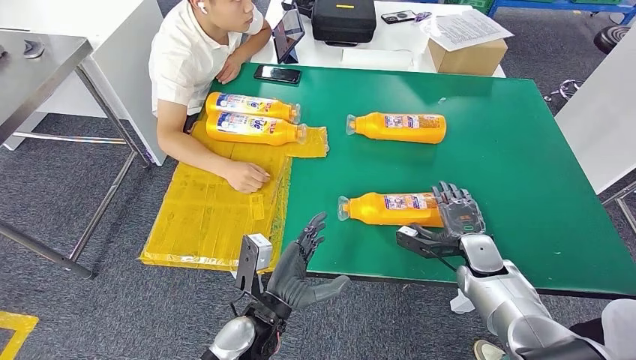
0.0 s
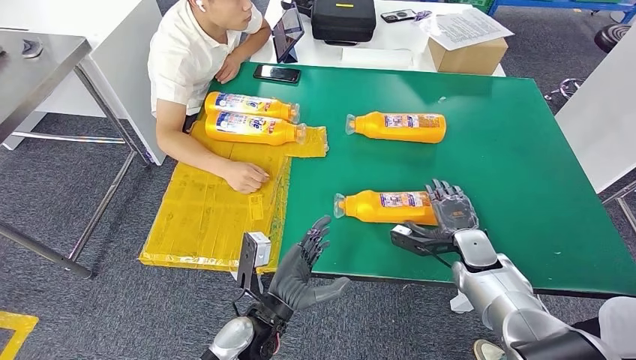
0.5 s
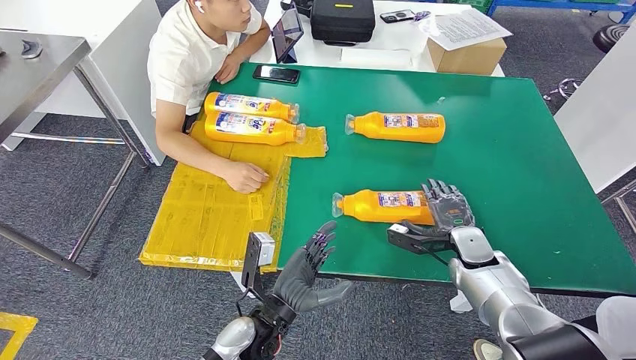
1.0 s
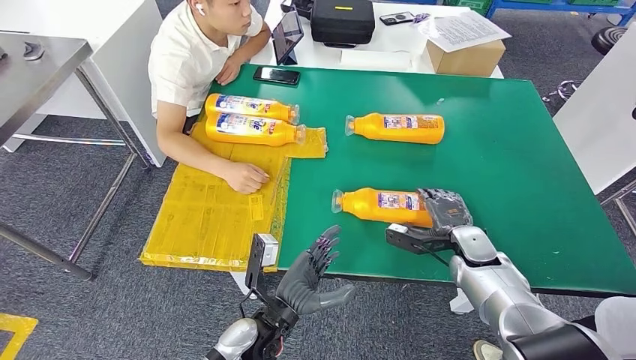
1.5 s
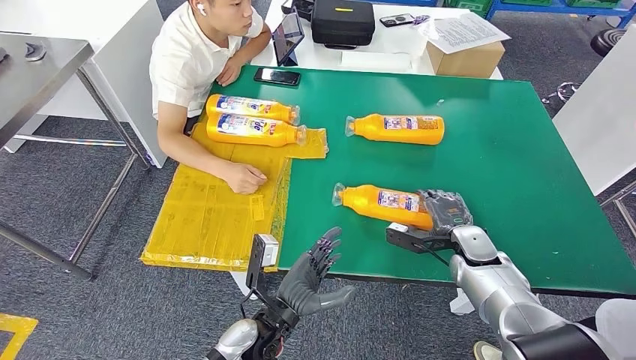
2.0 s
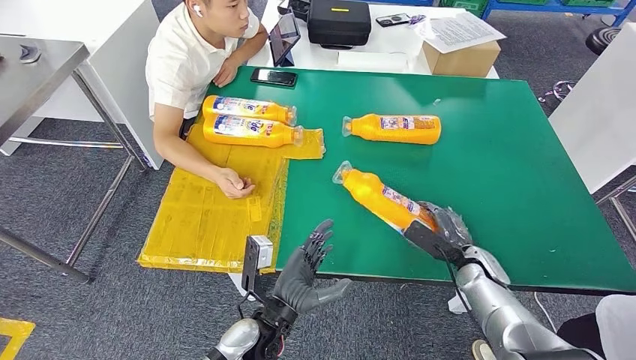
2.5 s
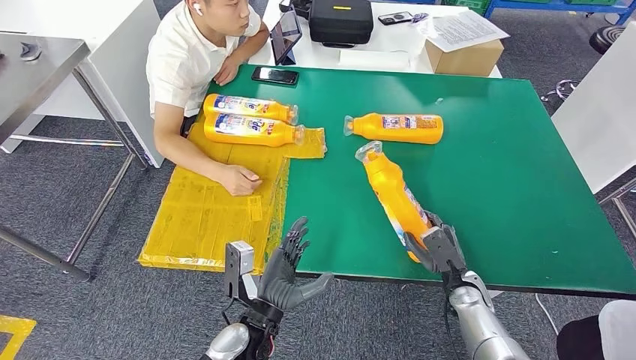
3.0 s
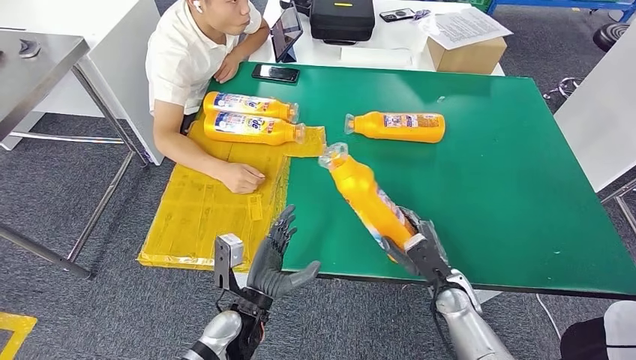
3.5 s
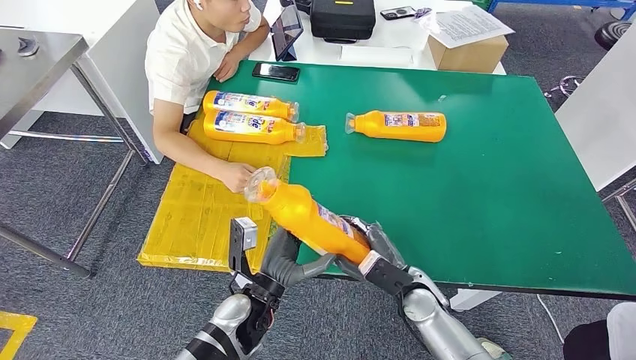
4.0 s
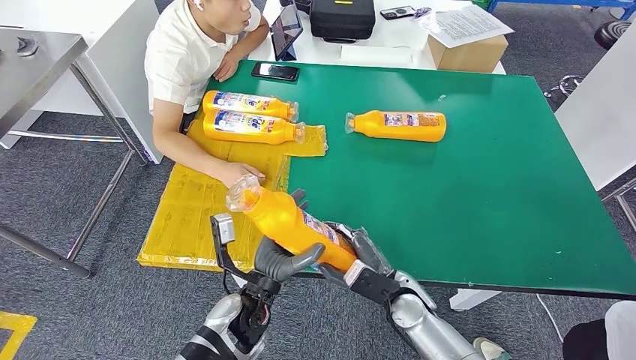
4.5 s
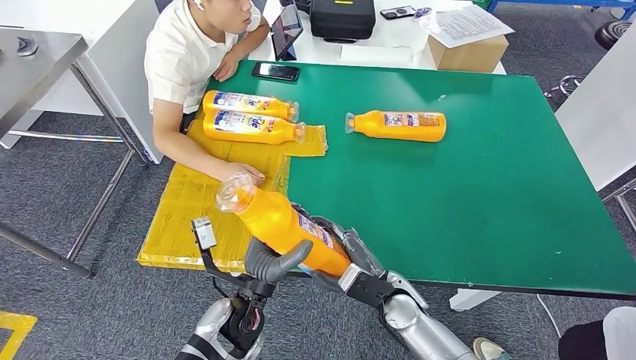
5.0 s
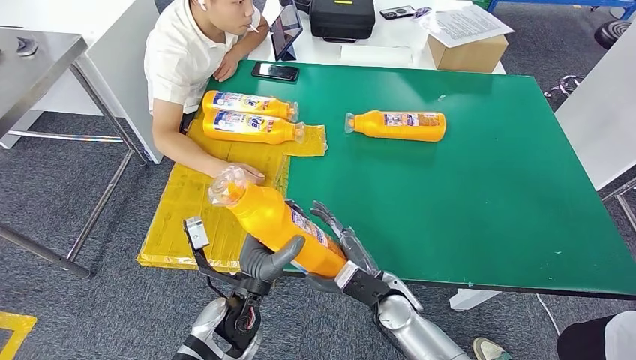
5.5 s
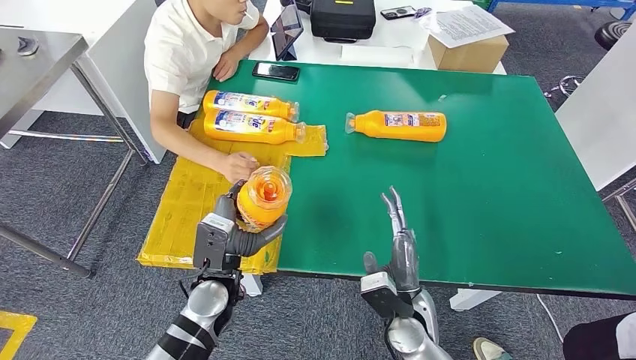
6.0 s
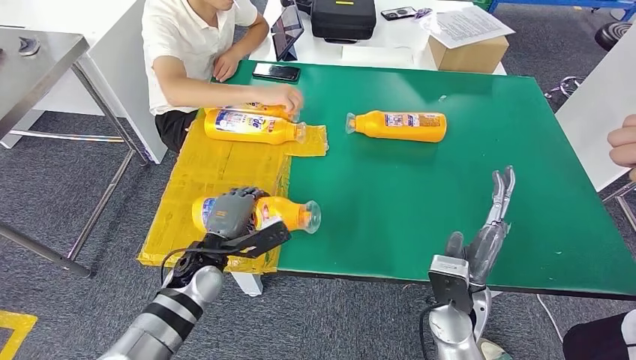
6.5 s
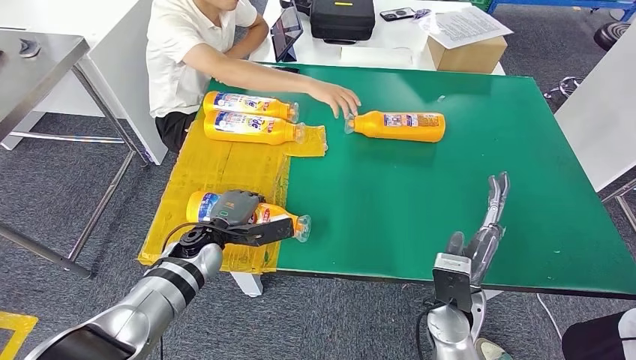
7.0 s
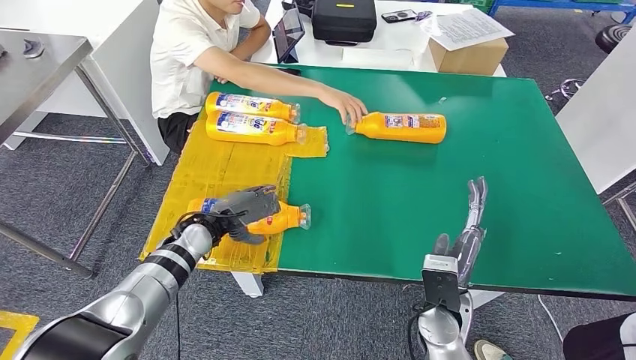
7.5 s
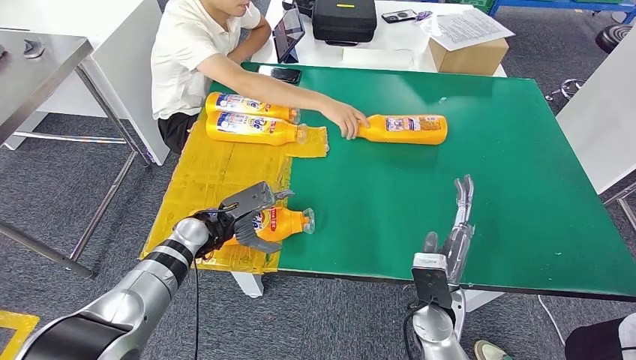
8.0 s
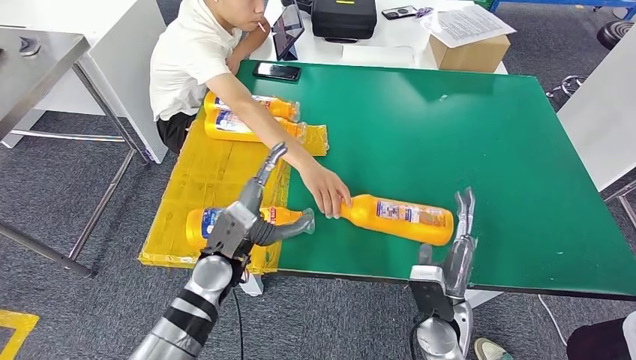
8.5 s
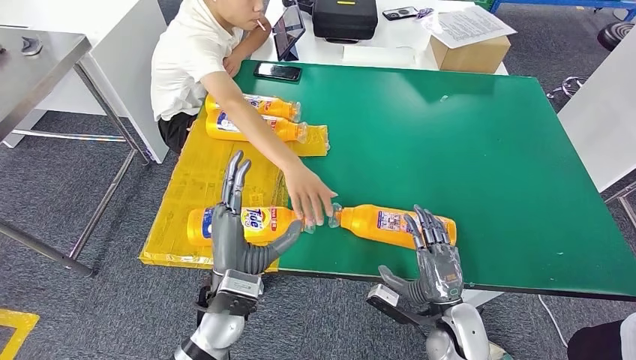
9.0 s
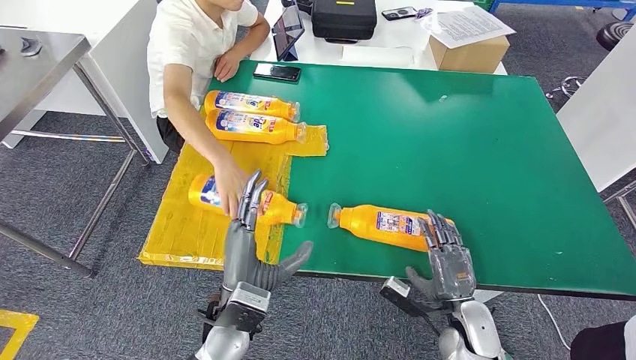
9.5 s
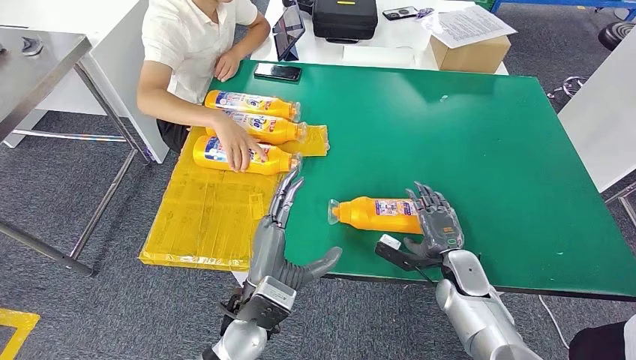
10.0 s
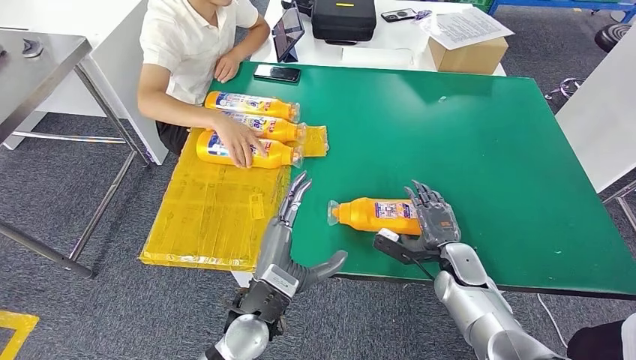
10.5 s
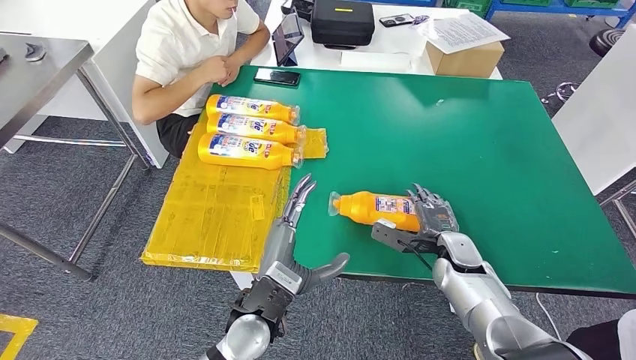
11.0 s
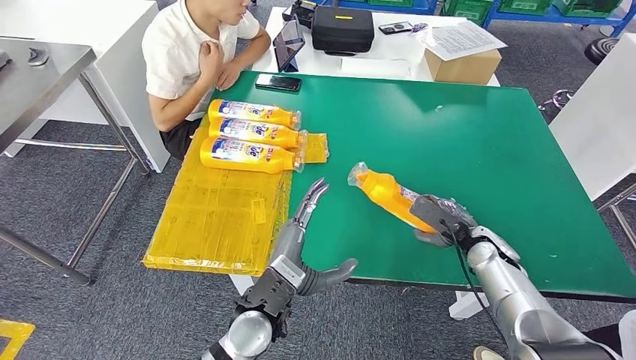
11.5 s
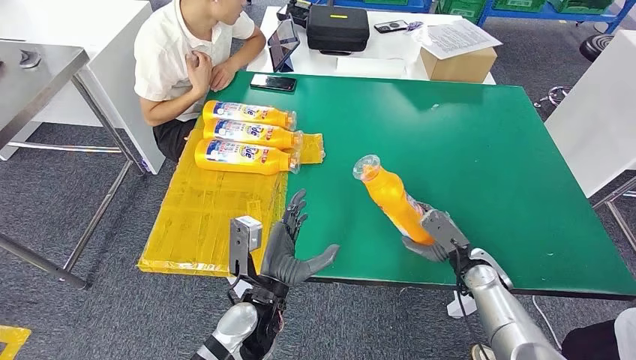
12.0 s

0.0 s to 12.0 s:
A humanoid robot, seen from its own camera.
Step, 0.0 to 3.5 s: Pick up the bottle from the table.
Step, 4.0 to 8.0 s: Flip the bottle to face forward.
0.0 to 2.0 s: The hands make only small movements.
4.0 to 6.0 s: The left hand is displaced to the left by approximately 5 cm. The right hand moves roughly 5 cm.

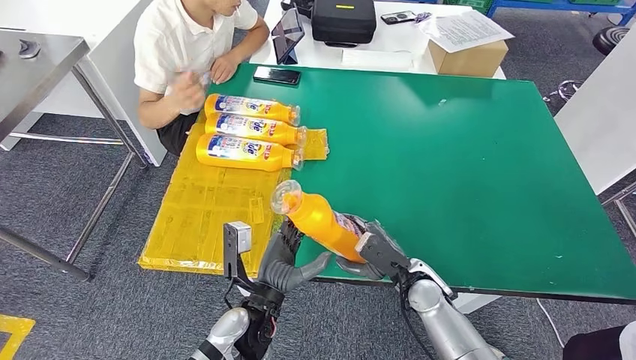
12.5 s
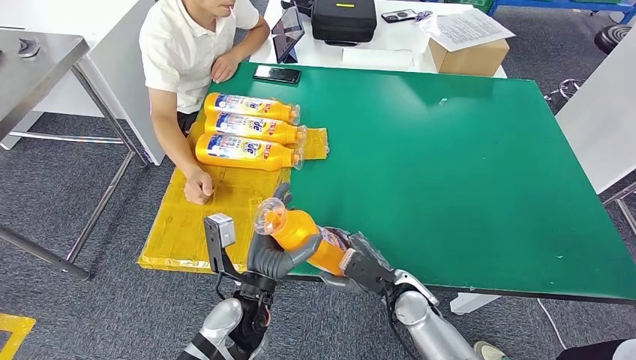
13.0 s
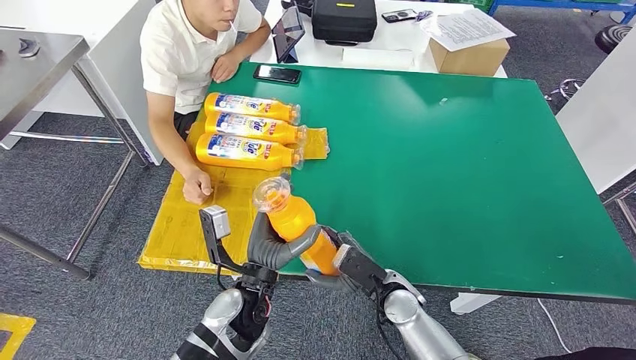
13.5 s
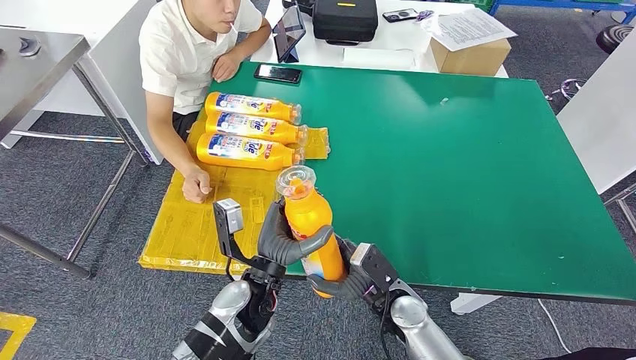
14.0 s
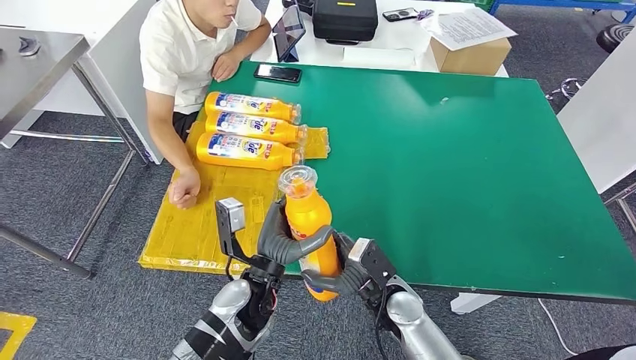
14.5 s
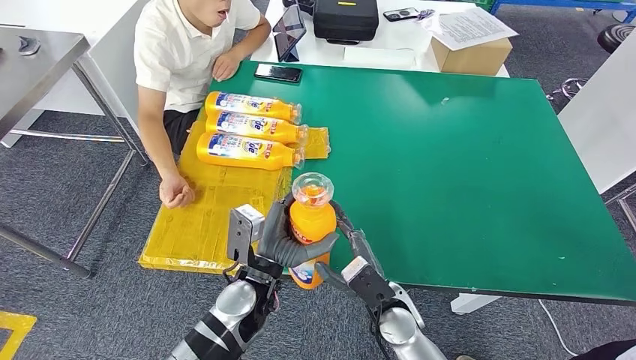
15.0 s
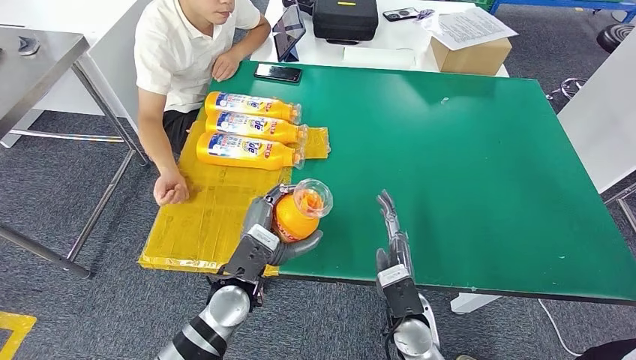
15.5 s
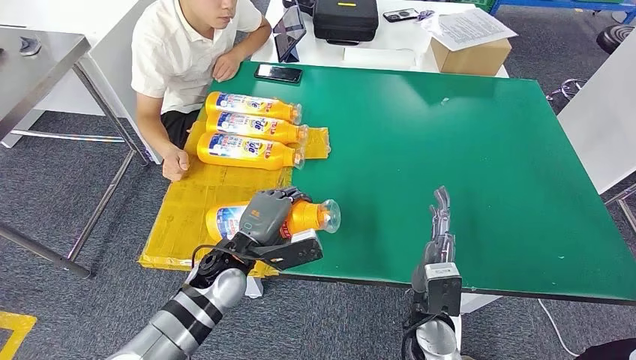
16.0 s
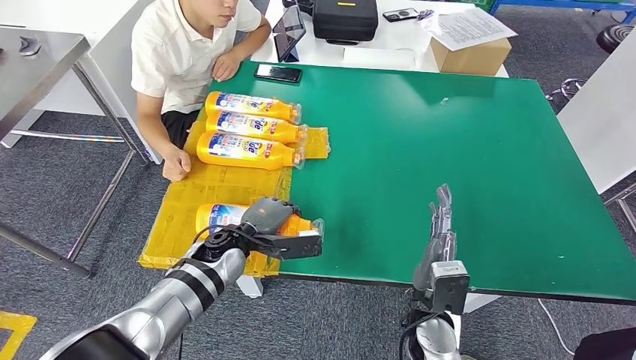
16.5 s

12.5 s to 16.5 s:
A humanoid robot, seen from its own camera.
Step, 12.5 to 16.5 s: Flip the bottle to face forward.
14.5 to 16.5 s: The left hand is displaced forward and to the left by roughly 10 cm. The right hand travels to the right by about 5 cm.

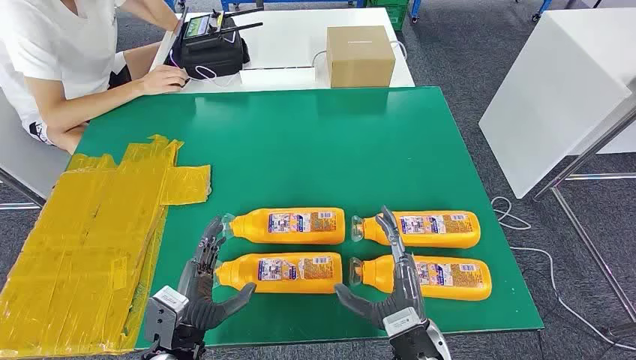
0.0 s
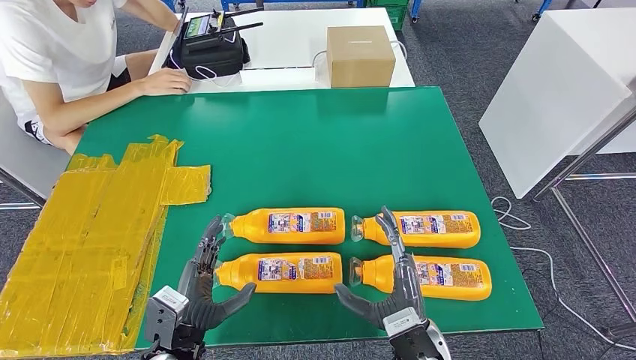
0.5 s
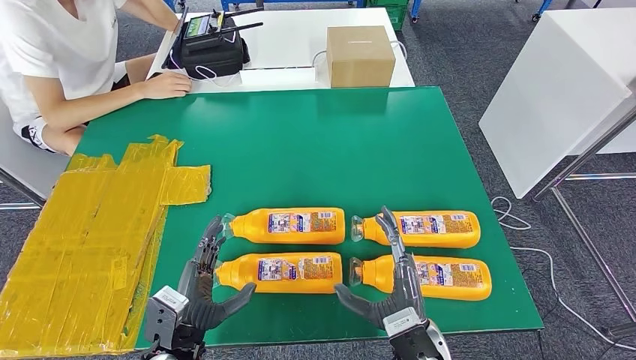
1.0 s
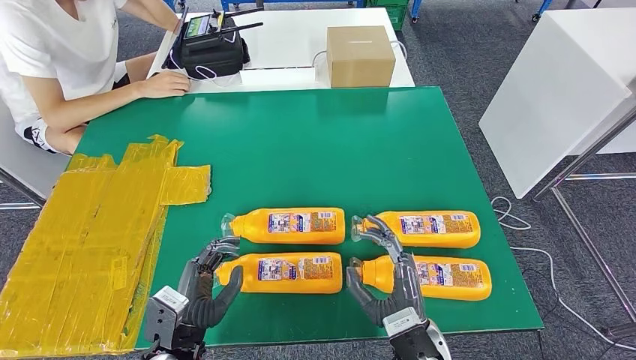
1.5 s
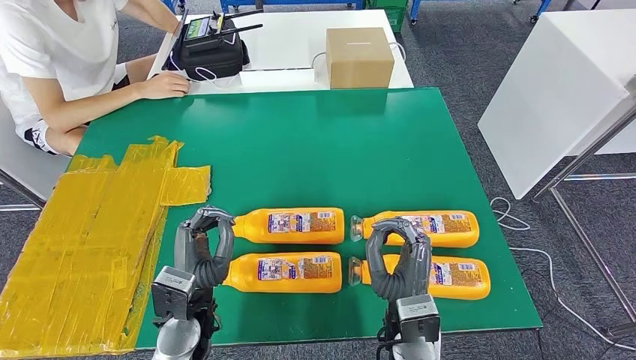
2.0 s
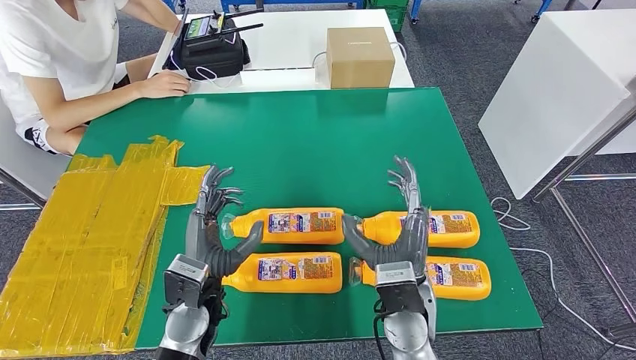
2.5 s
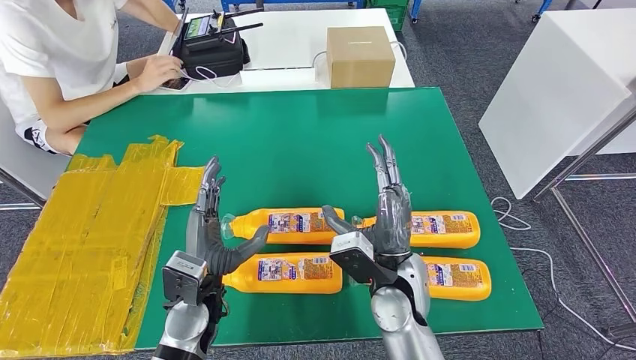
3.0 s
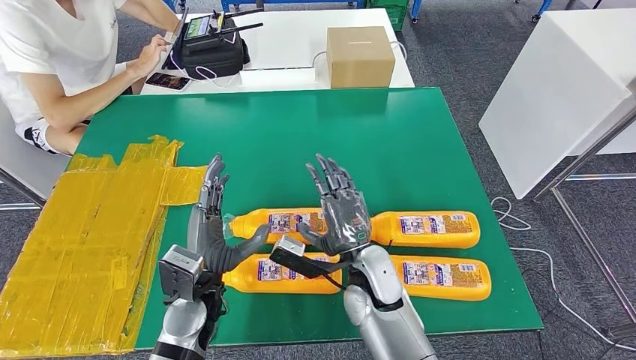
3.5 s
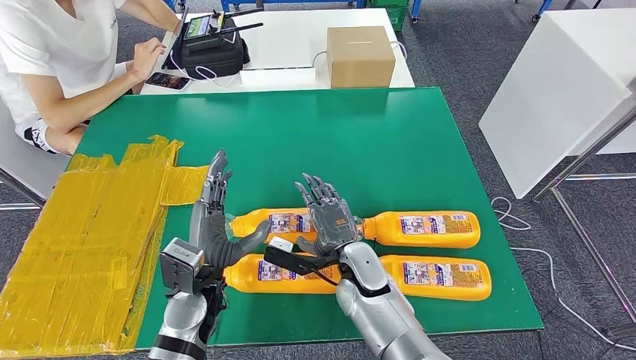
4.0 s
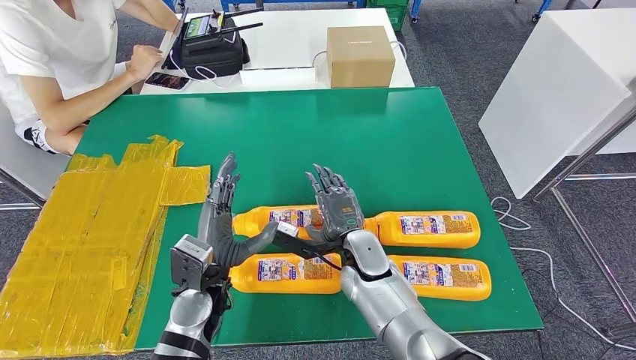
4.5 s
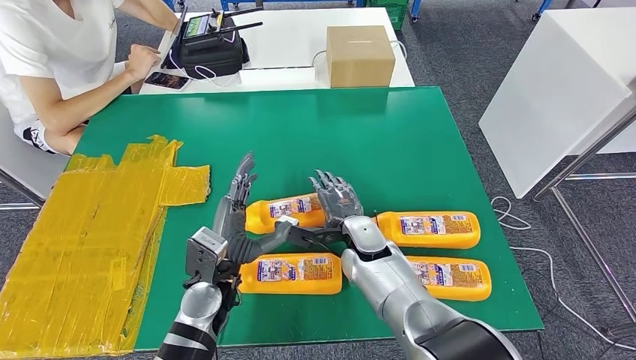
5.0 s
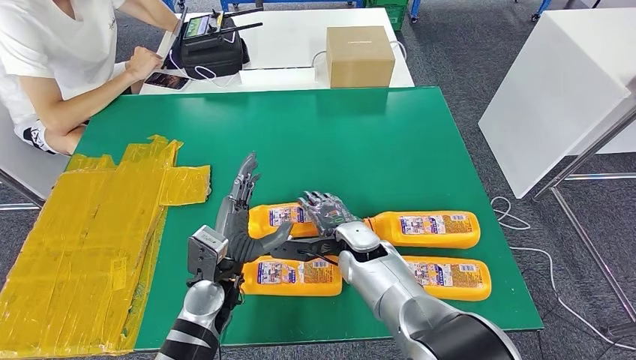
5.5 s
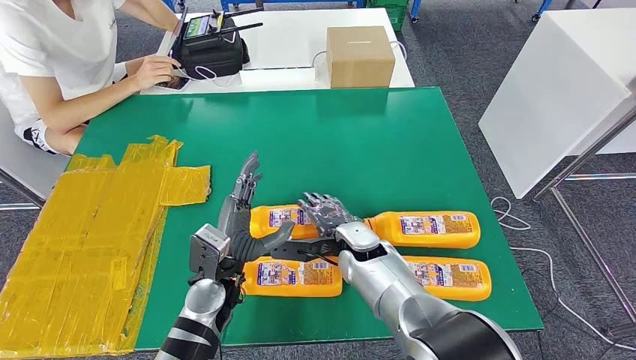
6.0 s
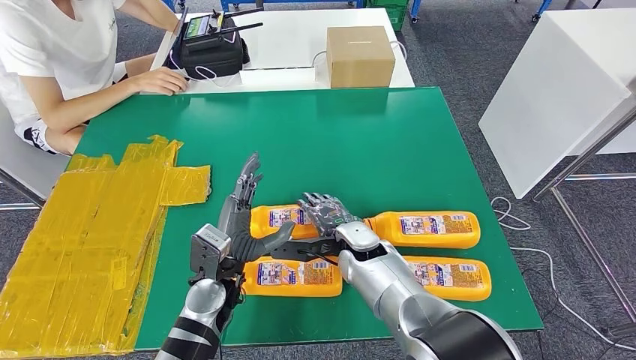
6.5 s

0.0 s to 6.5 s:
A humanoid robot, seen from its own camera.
2.0 to 4.5 s: The right hand shifts approximately 15 cm forward and to the left.
